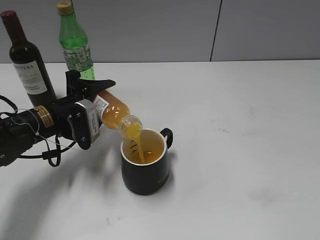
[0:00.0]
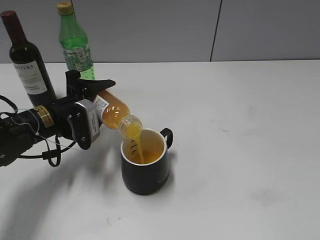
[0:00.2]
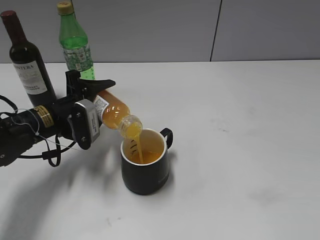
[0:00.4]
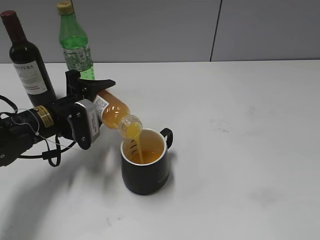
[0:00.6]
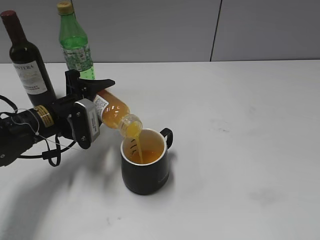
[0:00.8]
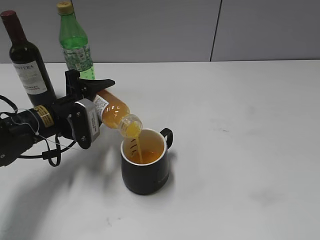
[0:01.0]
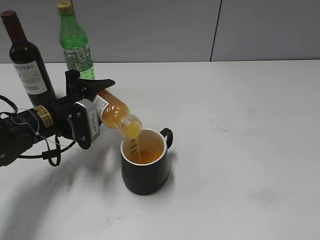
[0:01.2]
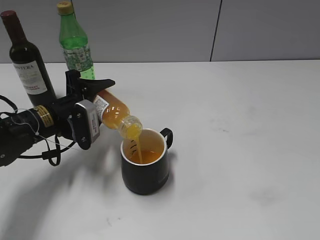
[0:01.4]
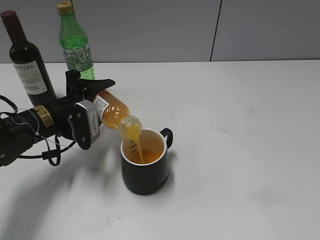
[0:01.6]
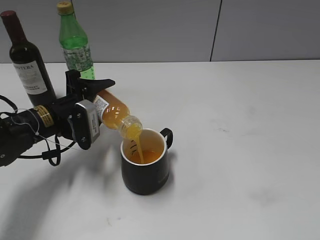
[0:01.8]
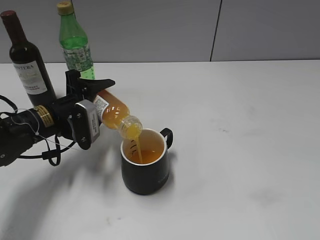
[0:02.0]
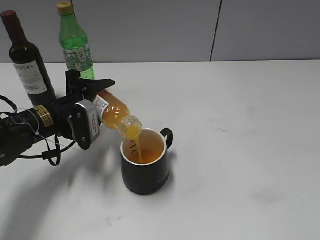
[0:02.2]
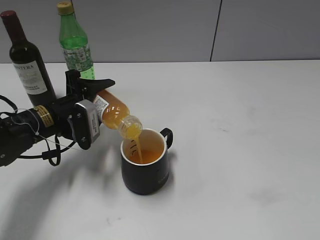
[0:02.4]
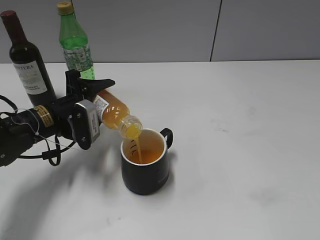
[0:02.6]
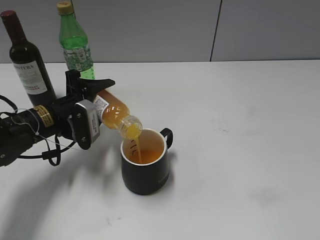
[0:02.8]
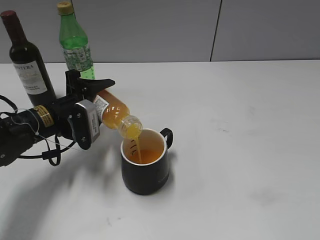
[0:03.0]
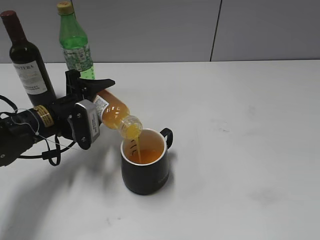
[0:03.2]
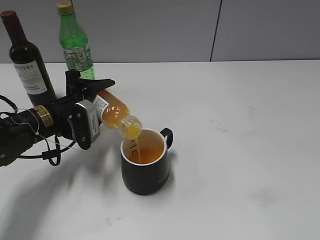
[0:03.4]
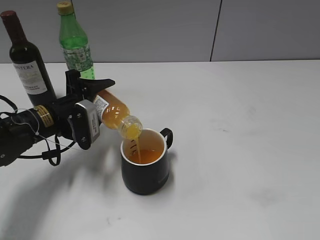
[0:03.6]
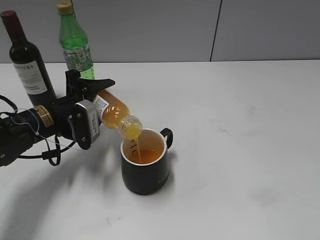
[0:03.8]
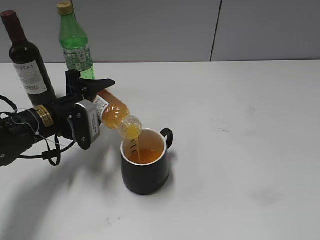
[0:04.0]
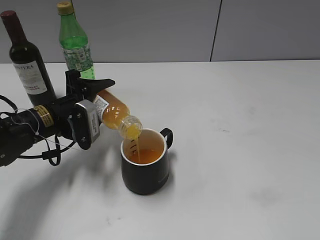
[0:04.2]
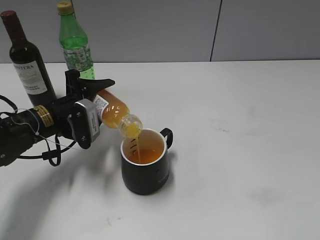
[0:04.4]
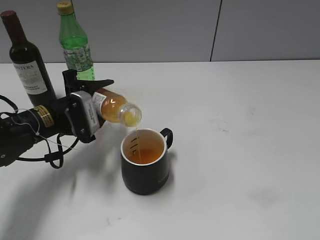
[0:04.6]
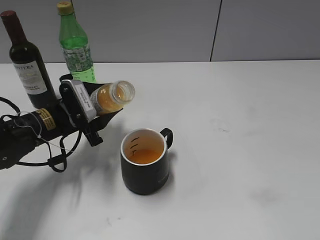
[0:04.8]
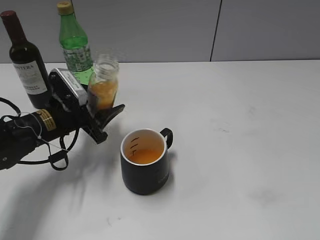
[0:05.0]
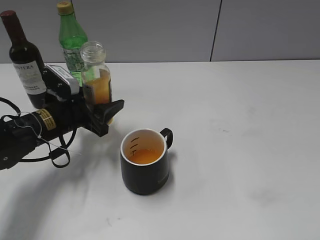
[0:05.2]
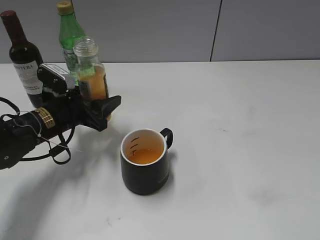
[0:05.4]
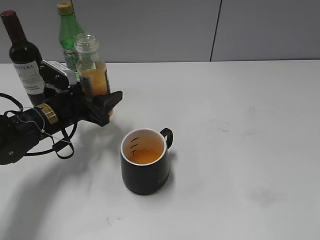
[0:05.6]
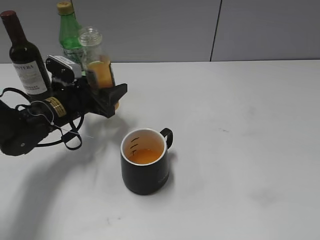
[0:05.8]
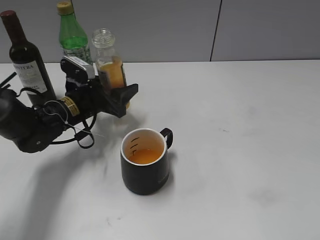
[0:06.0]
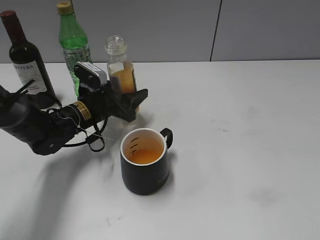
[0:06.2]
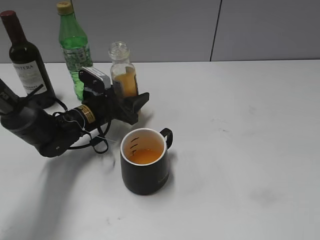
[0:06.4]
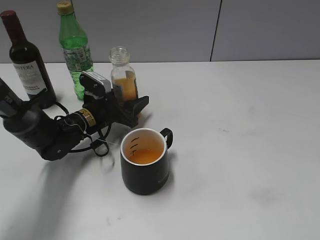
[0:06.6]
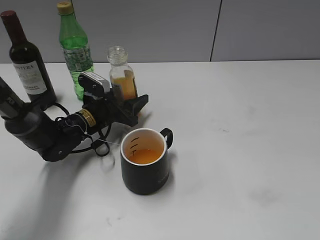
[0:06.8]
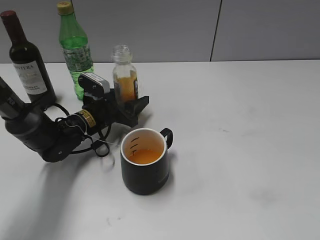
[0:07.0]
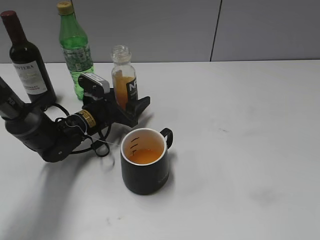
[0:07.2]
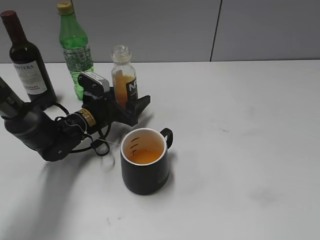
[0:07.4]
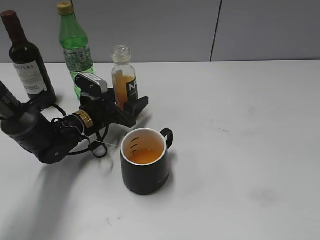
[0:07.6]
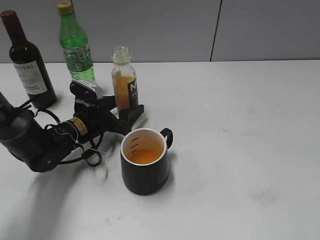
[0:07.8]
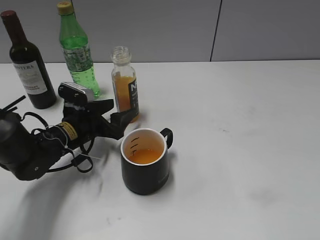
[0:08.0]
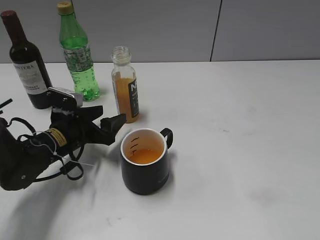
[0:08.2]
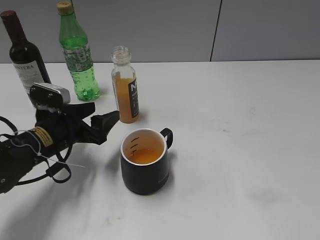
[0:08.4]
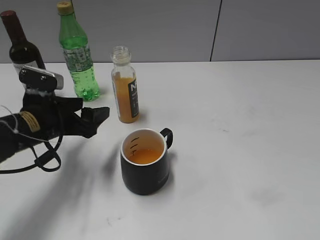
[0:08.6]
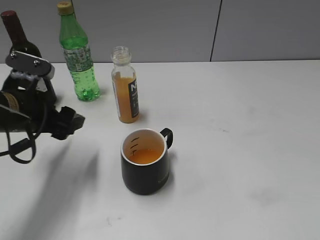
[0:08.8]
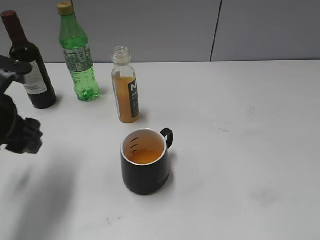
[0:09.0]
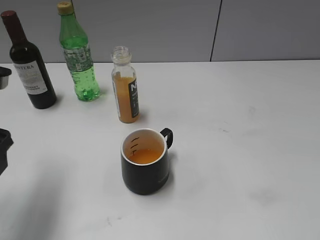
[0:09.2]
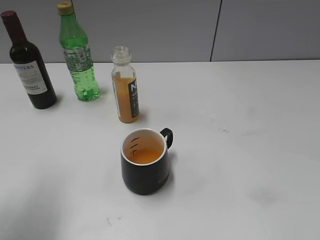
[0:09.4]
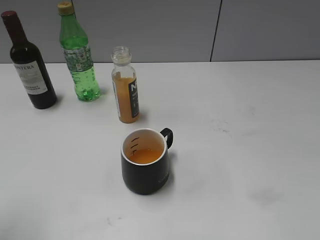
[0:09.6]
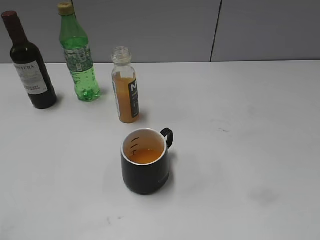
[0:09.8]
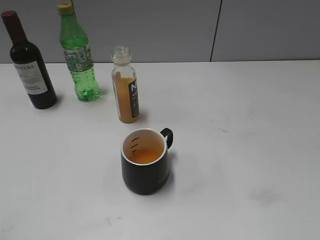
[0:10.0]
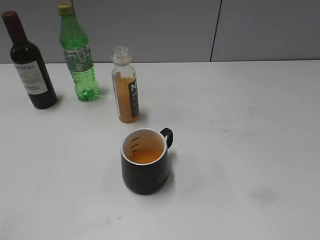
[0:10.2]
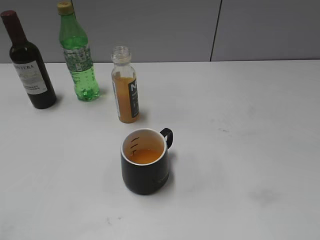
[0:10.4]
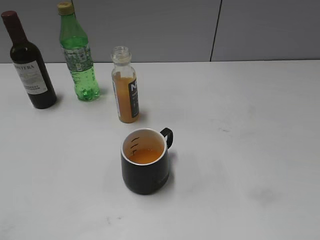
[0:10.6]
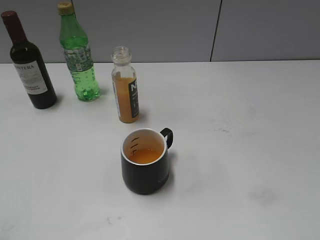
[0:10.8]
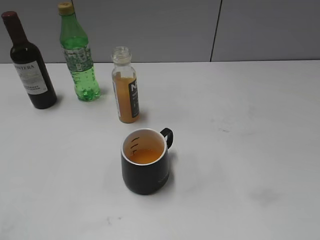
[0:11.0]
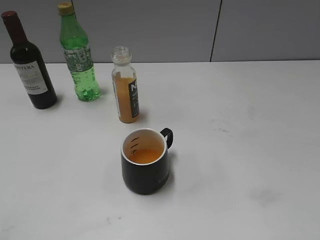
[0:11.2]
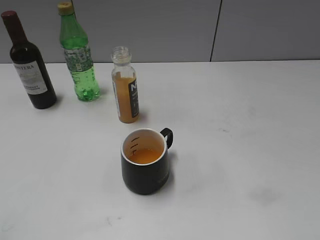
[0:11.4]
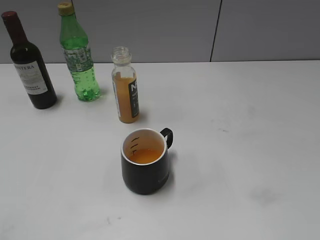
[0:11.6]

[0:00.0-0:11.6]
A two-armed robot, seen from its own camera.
Step, 0:00.0 to 0:04.6: Pour the orange juice from bottle to cup with left gripper.
Step, 0:04.8 to 0:07.6: Place the orange juice bottle on the table with left gripper.
0:00.0 to 0:04.4: The two grippers keep their place.
0:05.8 to 0:07.2: The left gripper is displaced downward by some 5 cm.
0:07.2 to 0:08.8: The left gripper shifts approximately 15 cm backward, upward and to the left.
0:08.8 to 0:10.2: The left gripper is displaced backward, upward and to the left by approximately 35 cm.

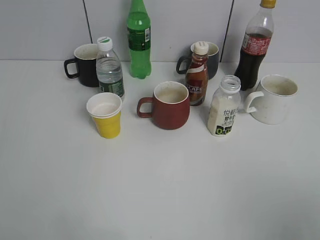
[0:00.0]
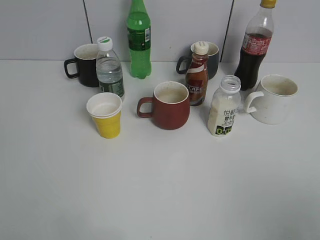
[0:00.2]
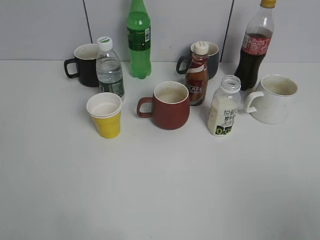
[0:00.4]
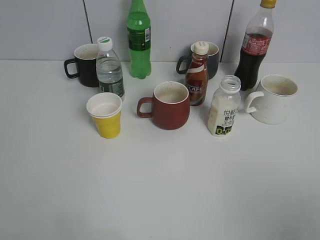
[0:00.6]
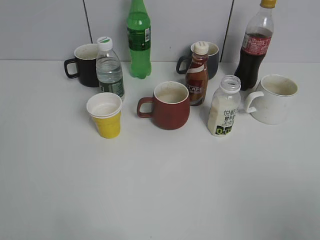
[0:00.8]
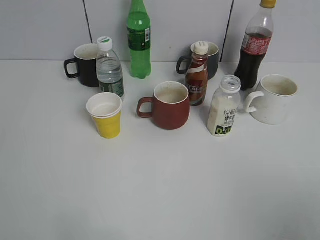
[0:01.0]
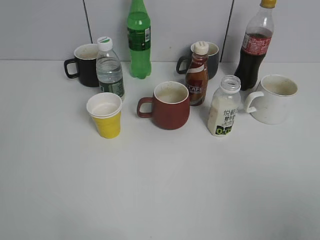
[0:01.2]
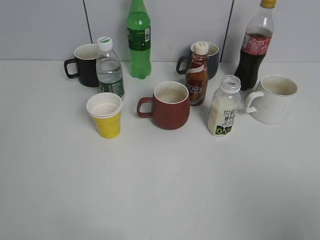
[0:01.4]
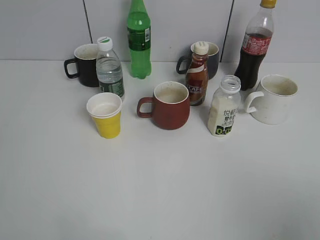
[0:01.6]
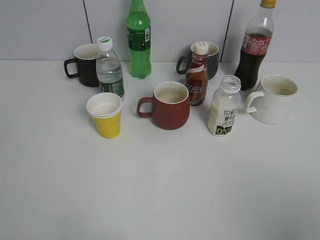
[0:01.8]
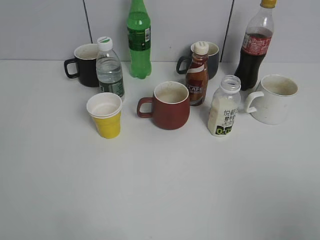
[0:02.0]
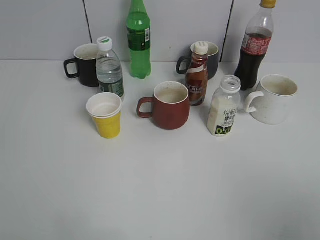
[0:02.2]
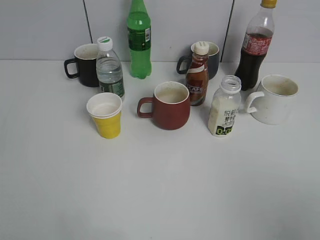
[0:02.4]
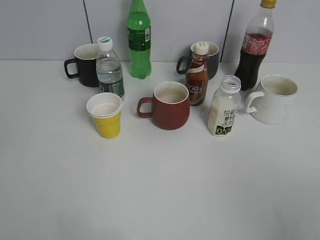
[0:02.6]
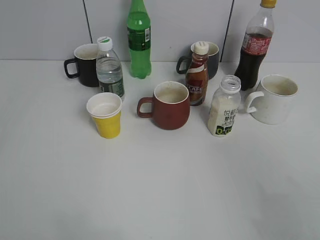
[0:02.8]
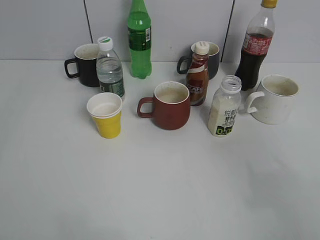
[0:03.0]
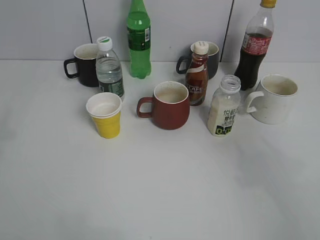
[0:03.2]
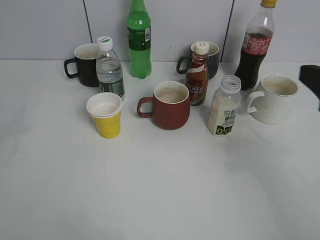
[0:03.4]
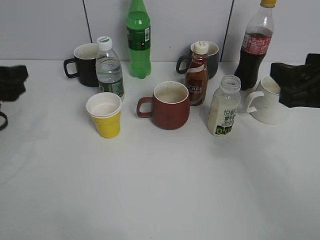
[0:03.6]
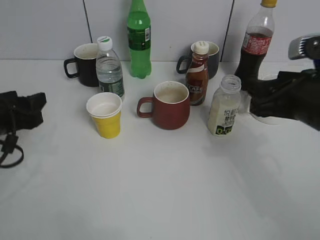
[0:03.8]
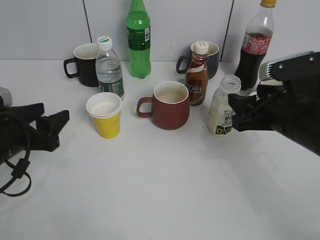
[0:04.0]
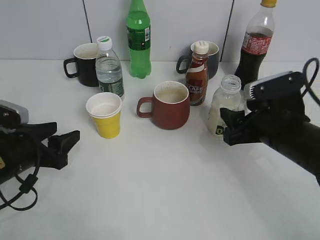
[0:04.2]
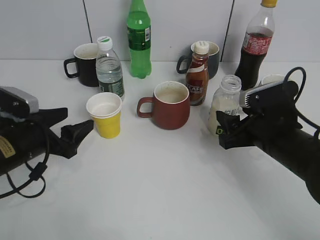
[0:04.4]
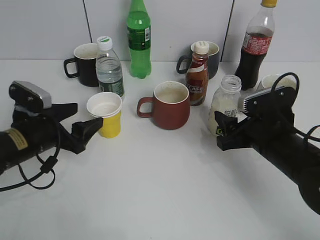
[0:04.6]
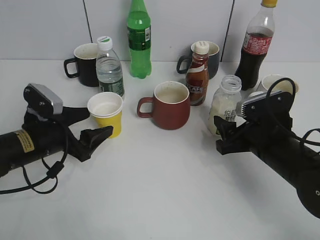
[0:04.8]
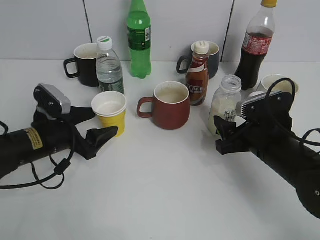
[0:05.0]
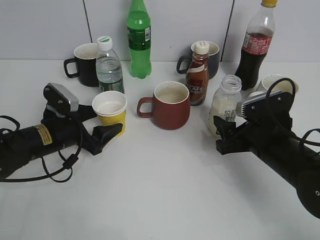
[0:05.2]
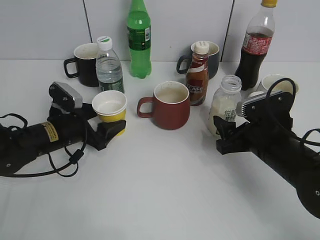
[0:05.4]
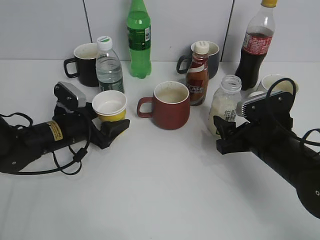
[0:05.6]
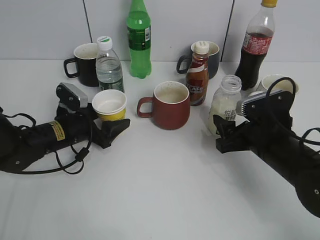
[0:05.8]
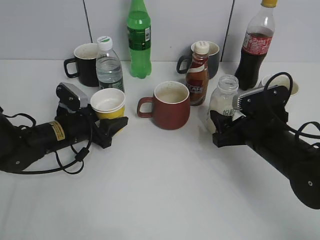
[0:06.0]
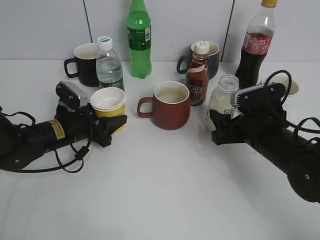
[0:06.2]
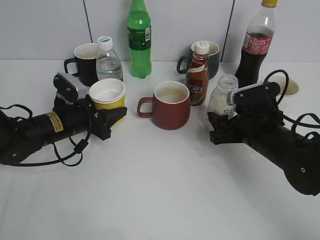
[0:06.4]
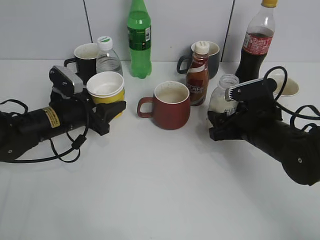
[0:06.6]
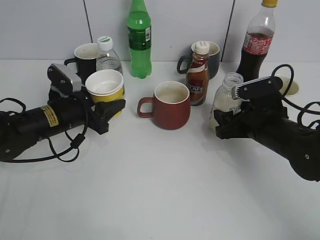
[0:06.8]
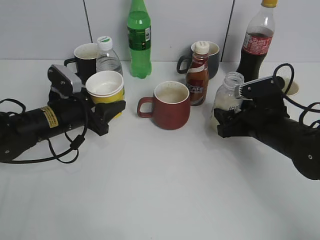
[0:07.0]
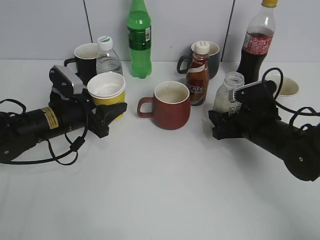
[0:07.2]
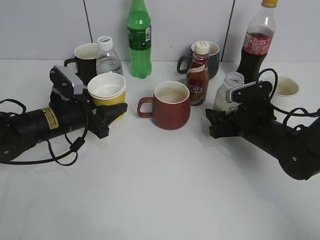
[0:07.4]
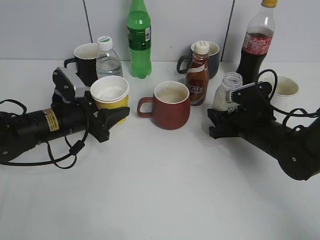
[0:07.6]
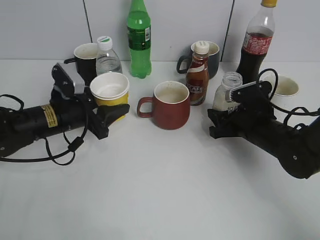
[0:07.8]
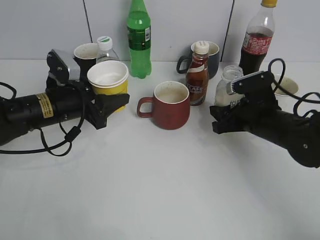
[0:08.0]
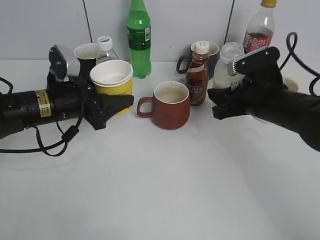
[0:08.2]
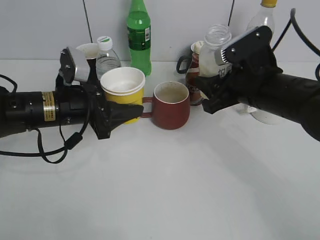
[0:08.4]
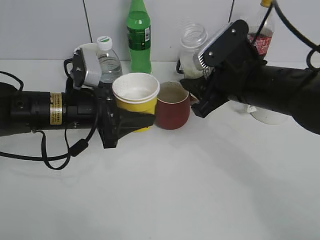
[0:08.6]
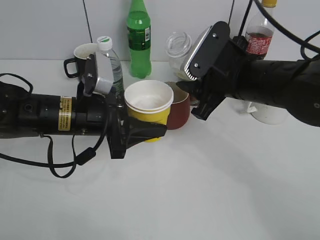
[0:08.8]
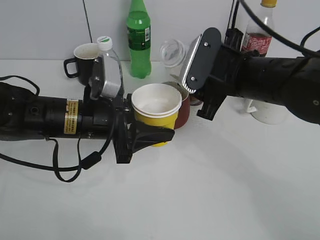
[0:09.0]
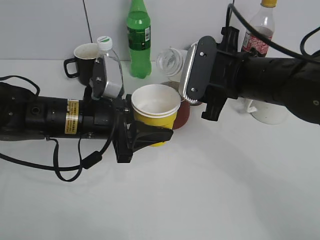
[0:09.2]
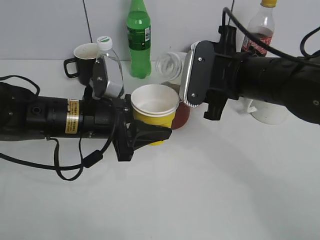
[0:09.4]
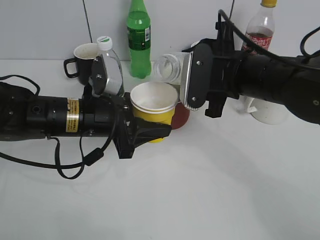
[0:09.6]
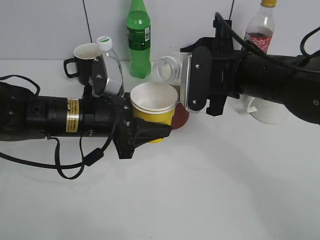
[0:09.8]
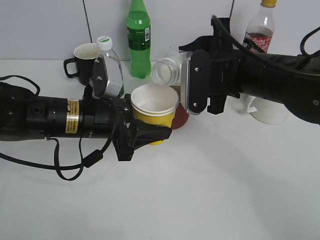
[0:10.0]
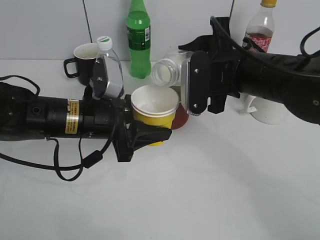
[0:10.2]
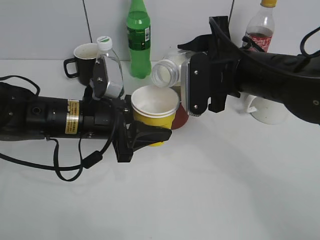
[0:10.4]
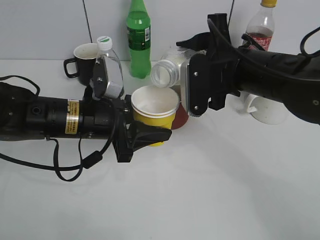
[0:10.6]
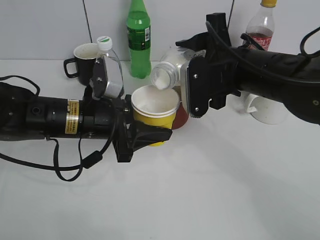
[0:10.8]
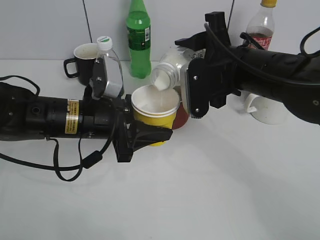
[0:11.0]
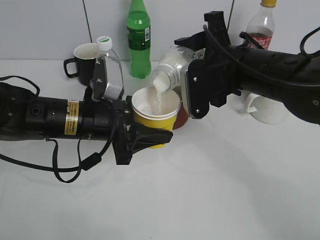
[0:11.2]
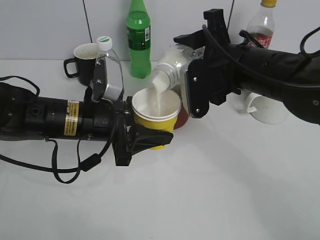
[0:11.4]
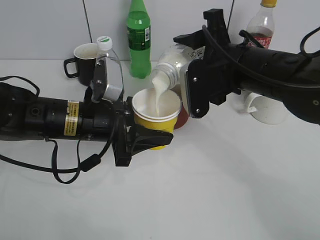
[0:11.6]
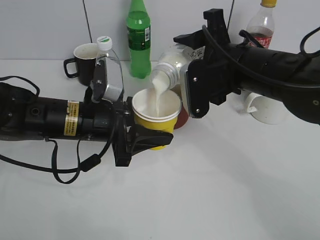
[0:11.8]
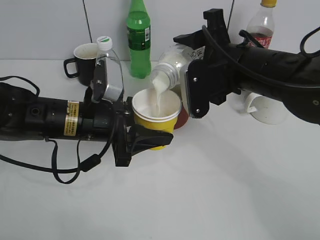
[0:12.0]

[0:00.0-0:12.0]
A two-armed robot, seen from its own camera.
Step, 0:03.4 to 0:05.8: Grasp the yellow paper cup with left gripper.
Step, 0:06.0 to 0:06.8: Lift the yellow paper cup with left gripper.
Step, 0:07.0 to 0:07.6: Grasp the bottle with yuexian Milk with right gripper.
0:01.6 to 0:03.0: The right gripper shifts roughly 10 cm forward.
0:03.0 to 0:04.4: The right gripper is displaced downward, forward and to the left by about 25 cm, while the left gripper goes approximately 25 cm downward and forward, and opens its fingers.
0:04.4 to 0:06.0: The left gripper moves forward and downward, approximately 10 cm, and closes up.
0:06.0 to 0:07.6: The right gripper shifts approximately 5 cm forward, and closes up.
0:07.6 to 0:09.0: The left gripper goes some 10 cm to the right, upward and backward, while the right gripper heads upward and to the left, covering some 15 cm.
0:10.4 to 0:12.0: The grippers make only small movements.
